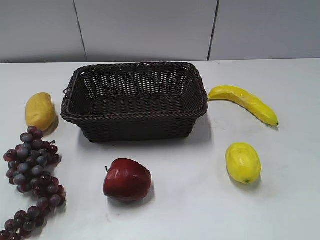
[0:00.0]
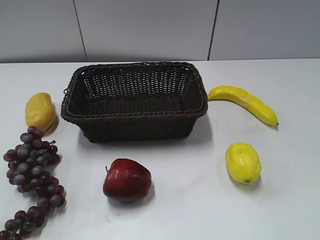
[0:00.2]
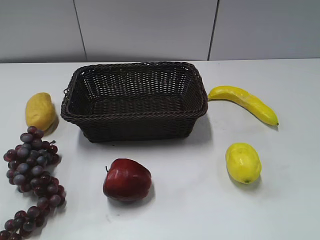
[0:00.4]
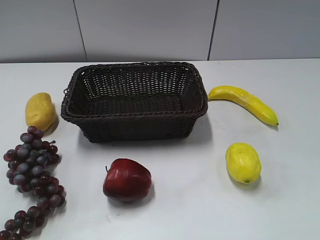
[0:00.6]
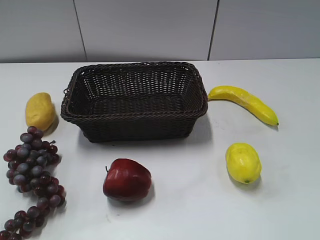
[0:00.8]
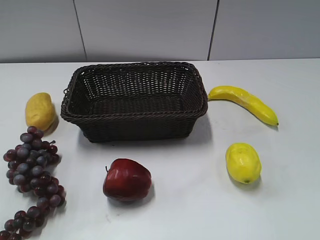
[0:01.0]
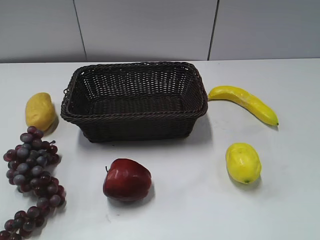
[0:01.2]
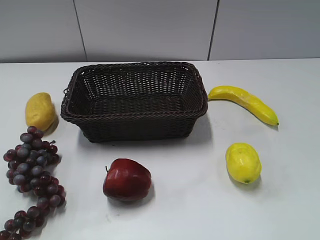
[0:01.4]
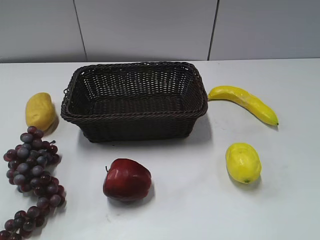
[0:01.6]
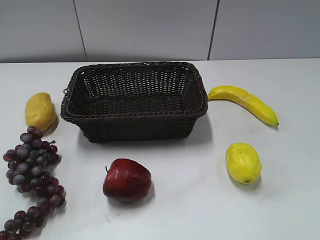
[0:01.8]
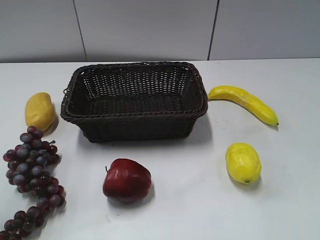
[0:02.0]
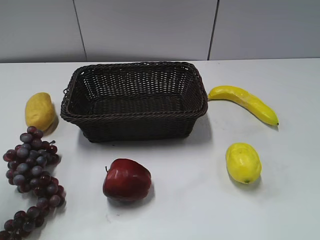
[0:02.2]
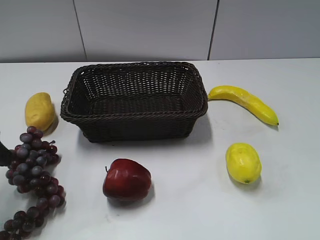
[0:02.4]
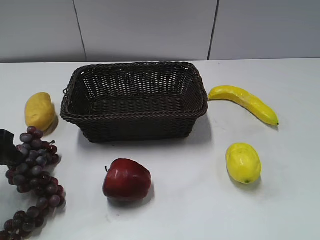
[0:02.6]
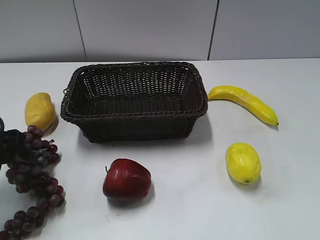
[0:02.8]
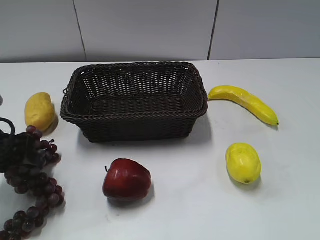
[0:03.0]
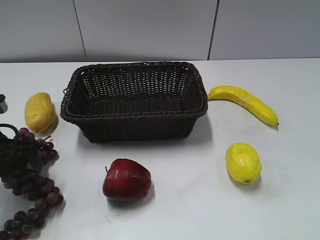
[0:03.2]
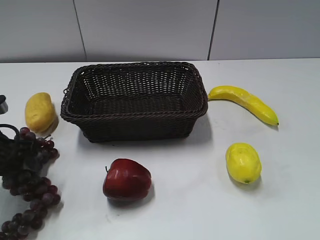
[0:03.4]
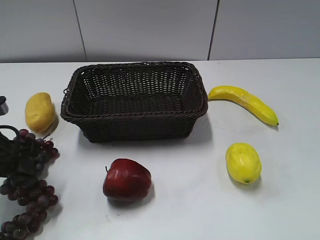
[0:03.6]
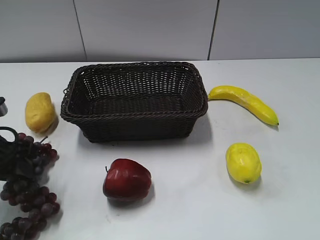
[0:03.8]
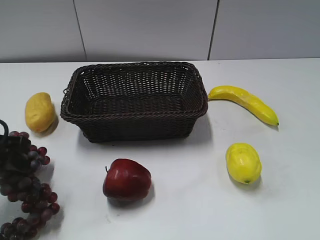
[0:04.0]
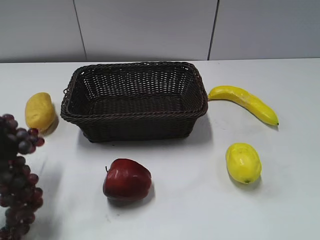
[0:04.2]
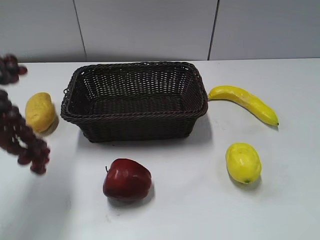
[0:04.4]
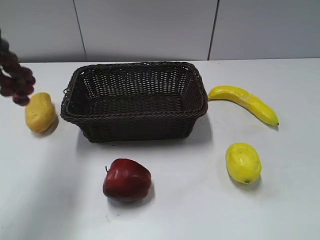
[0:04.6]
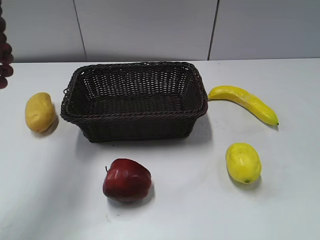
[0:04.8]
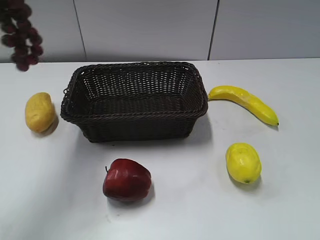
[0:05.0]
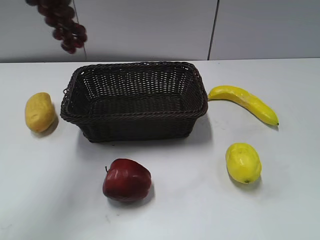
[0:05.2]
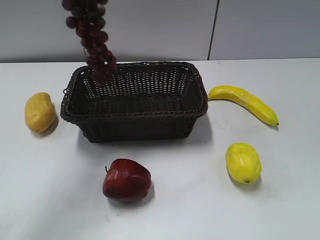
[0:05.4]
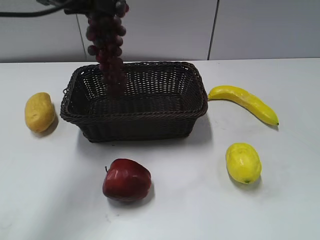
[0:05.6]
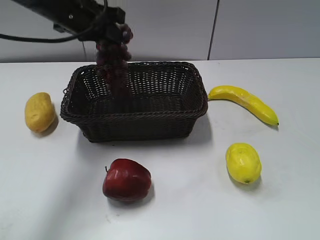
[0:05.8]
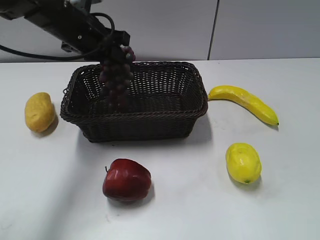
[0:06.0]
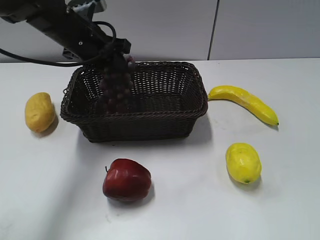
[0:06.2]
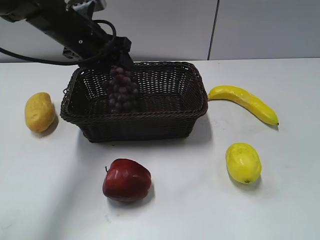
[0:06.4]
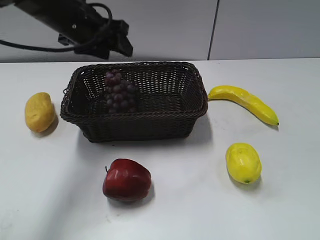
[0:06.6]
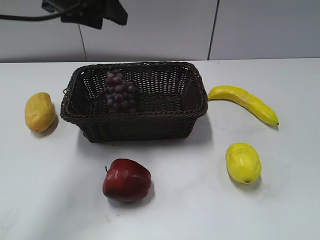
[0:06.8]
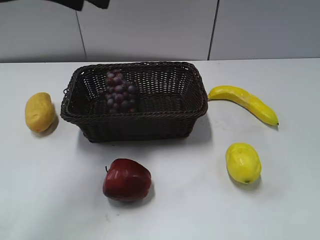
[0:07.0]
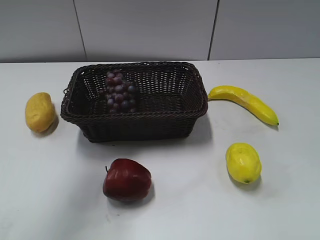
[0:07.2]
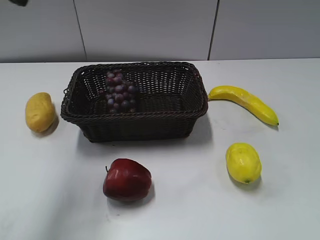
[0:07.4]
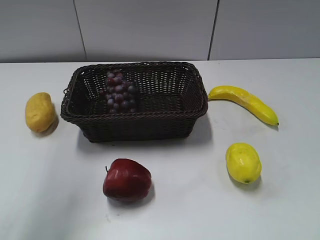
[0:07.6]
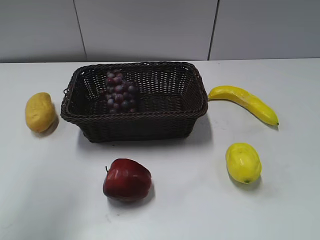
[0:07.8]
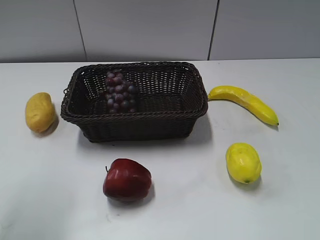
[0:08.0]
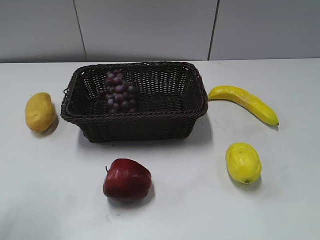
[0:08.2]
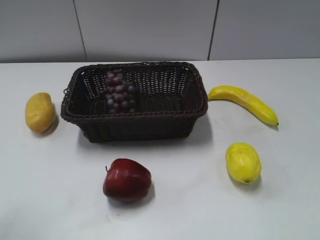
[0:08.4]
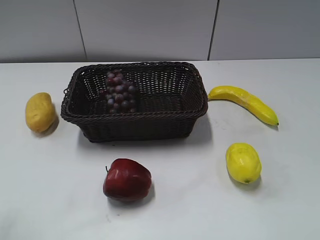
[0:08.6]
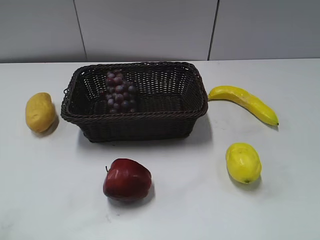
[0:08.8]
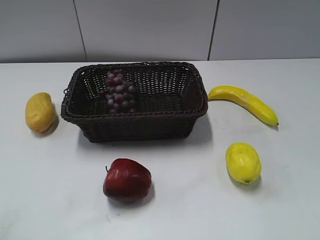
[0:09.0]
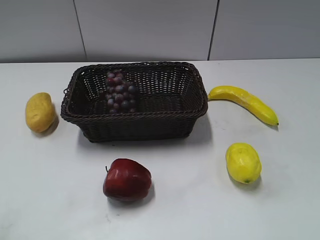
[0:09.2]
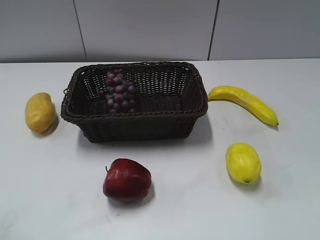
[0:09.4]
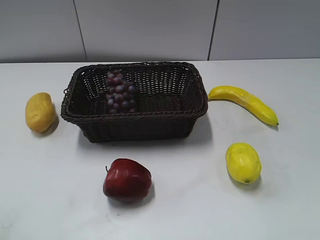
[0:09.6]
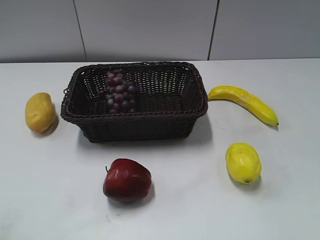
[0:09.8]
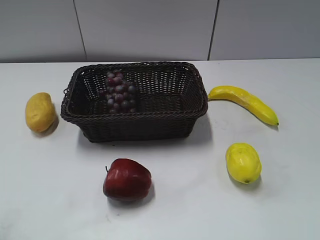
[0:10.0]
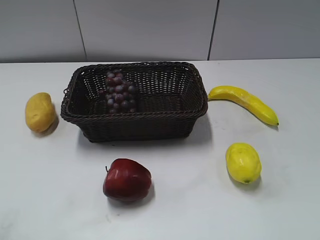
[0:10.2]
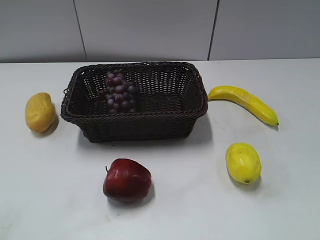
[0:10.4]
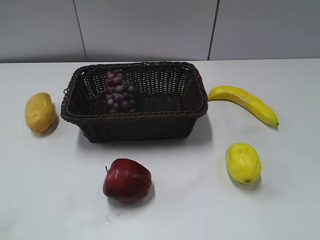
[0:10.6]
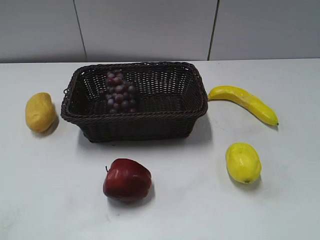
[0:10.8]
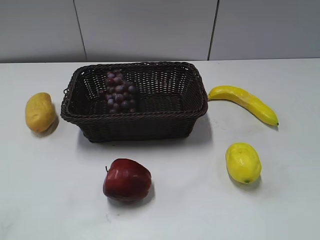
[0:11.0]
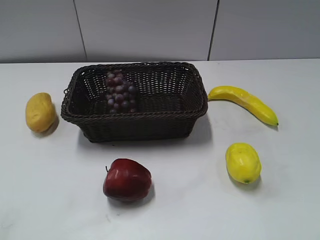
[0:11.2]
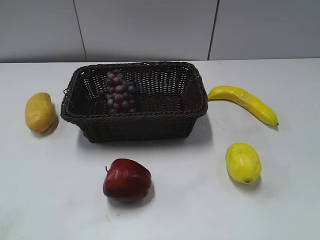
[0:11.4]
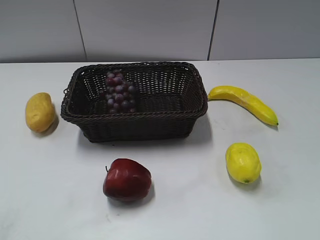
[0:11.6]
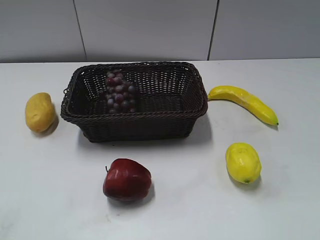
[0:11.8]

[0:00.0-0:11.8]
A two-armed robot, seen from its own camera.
Step, 0:02.4 to 0:04.2: Grasp the grape with left gripper.
Step, 0:04.4 to 0:06.6: Place the grape in the basket with left gripper.
0:01.4 to 0:03.0: The left gripper heads forward and downward, covering some 25 cm.
0:03.0 to 0:04.4: The left gripper moves upward, roughly 30 cm, and closes.
0:04.4 to 0:06.0: The left gripper heads forward, downward and to the right, covering some 30 cm, and opens.
0:06.0 to 0:07.4: The left gripper travels upward, backward and to the left by roughly 30 cm.
0:07.4 to 0:08.8: The left gripper moves backward and downward, roughly 20 cm.

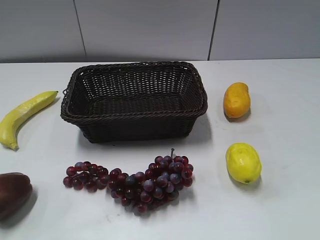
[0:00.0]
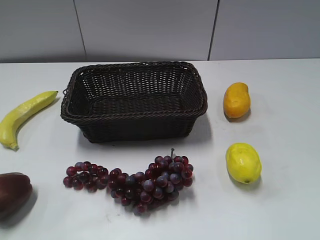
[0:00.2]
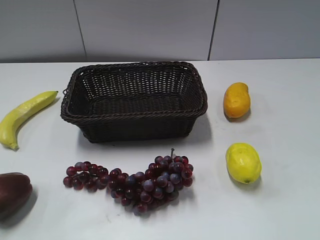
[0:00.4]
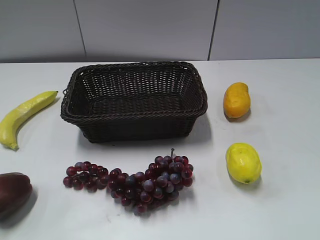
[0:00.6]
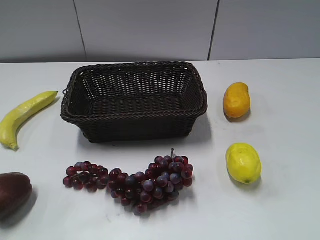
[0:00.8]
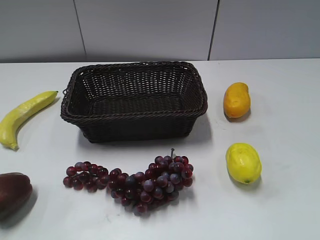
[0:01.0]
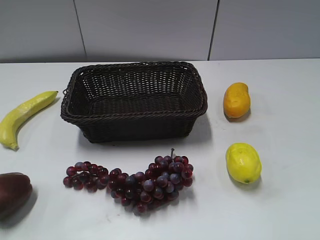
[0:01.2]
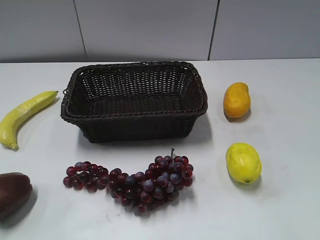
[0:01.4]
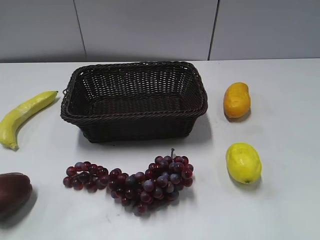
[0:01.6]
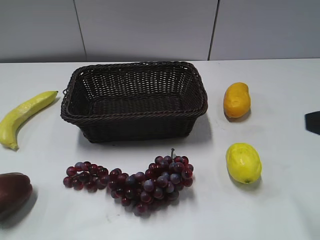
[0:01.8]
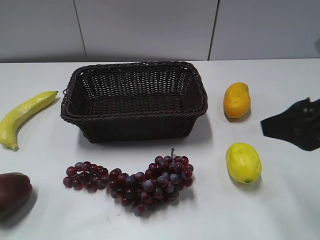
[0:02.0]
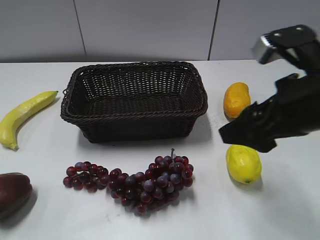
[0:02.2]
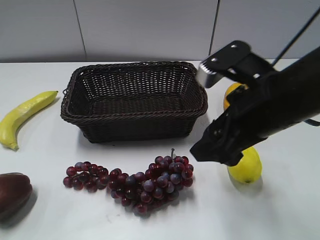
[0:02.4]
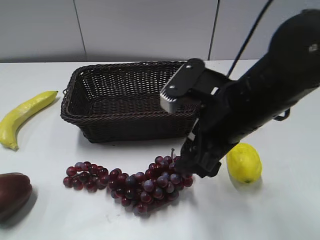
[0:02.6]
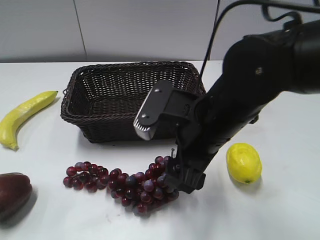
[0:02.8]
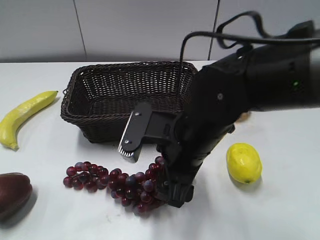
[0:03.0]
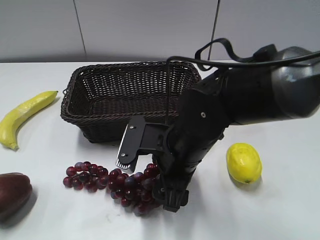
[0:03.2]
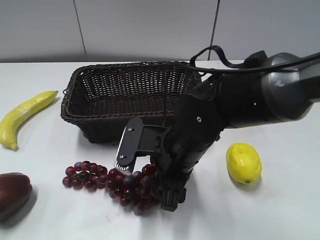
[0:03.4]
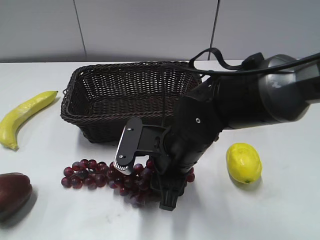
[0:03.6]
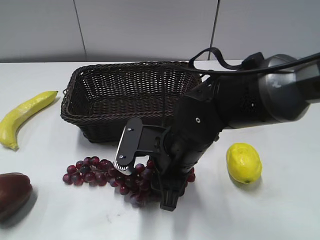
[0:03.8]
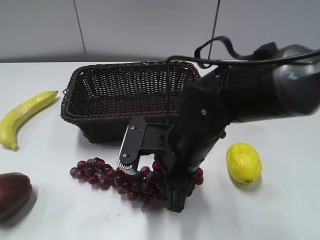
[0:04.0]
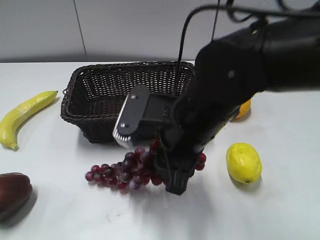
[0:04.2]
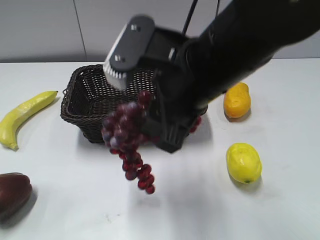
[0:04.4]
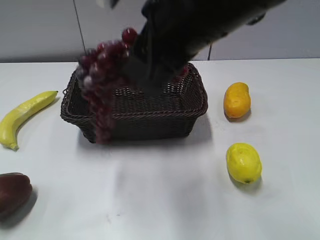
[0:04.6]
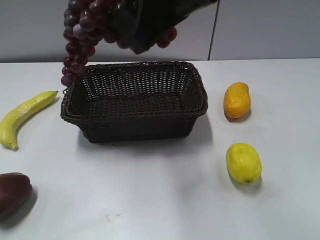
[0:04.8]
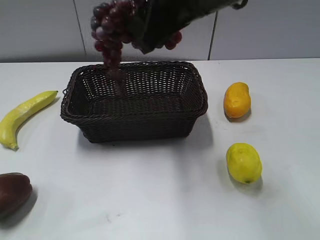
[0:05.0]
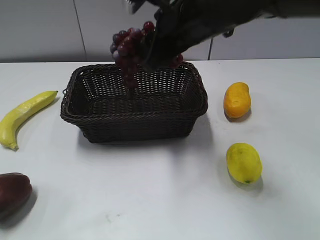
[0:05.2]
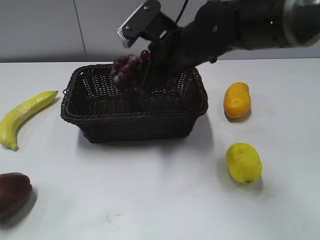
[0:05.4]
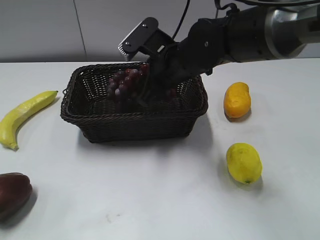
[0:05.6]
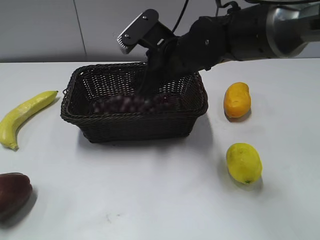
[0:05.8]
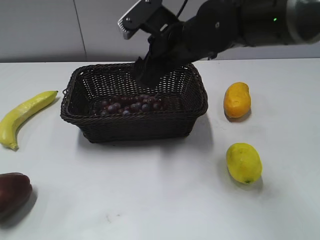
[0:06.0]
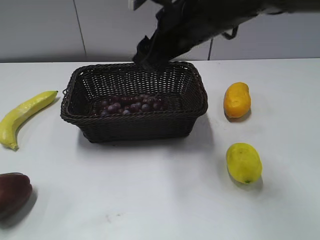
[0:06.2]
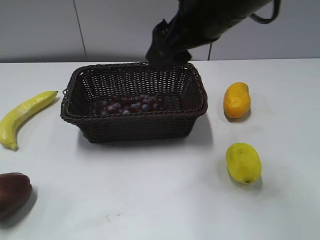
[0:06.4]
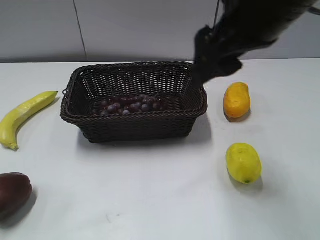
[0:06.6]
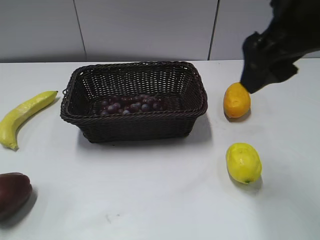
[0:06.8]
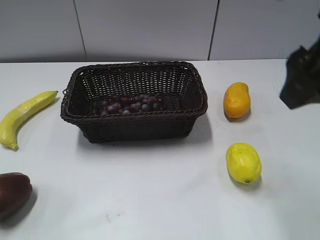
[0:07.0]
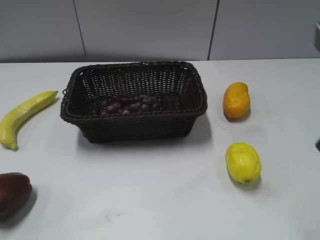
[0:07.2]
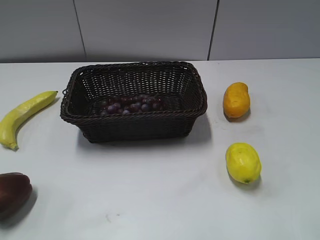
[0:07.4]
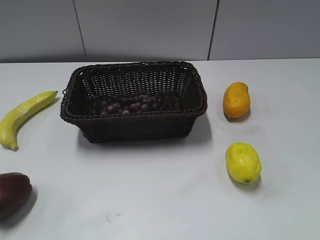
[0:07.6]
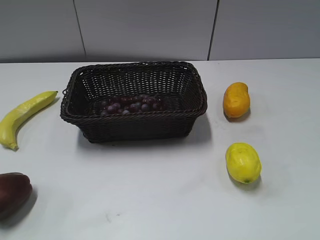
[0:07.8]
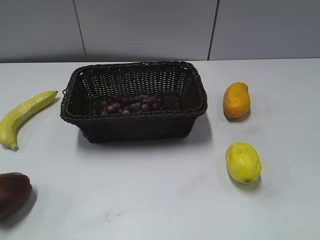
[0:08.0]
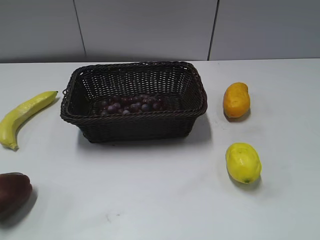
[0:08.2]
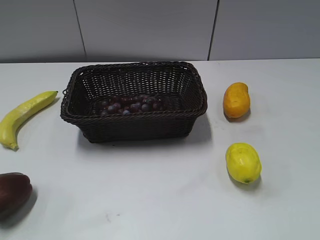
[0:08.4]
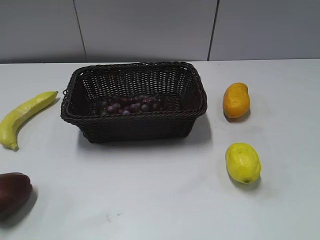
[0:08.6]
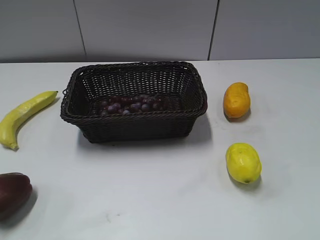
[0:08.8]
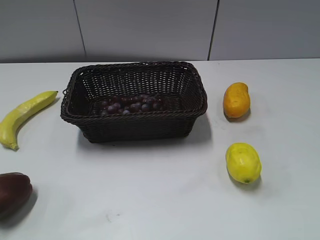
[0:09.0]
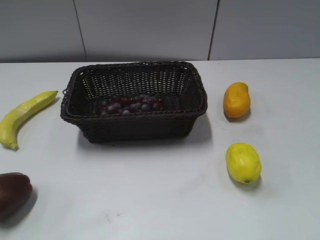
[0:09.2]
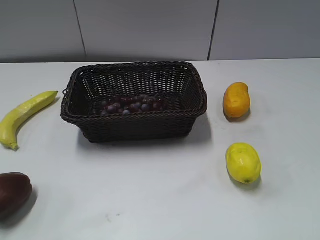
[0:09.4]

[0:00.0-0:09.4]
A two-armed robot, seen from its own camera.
Step, 0:01.8 to 0:04.0: Grasp the grape with right gripper.
Step, 0:04.2 to 0:06.0: Place the grape in the basket with right gripper.
0:01.6 to 0:03.2: The right gripper heads to the left, downward and forward, covering approximately 30 cm.
0:03.2 to 0:04.8: The right gripper shifts about 20 cm upward, and closes its fingers.
0:04.8 to 0:06.2: The right gripper shifts about 10 cm downward and forward, and opens up.
0:06.2 to 0:07.8: The right gripper goes about 35 cm to the right and backward.
